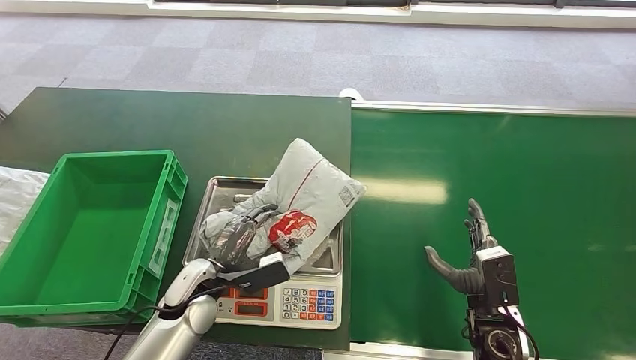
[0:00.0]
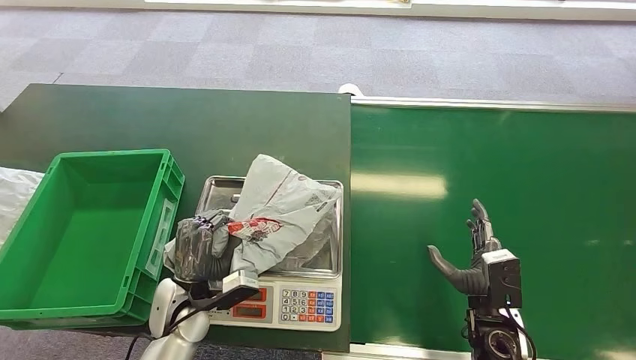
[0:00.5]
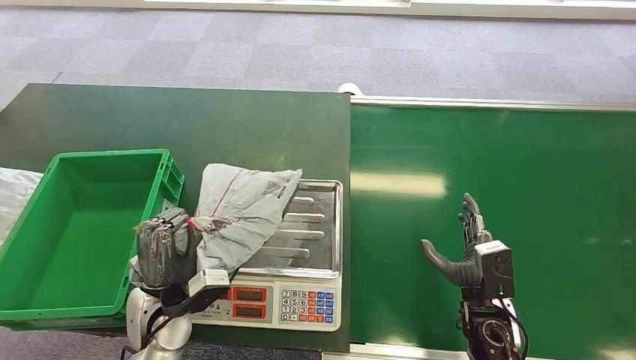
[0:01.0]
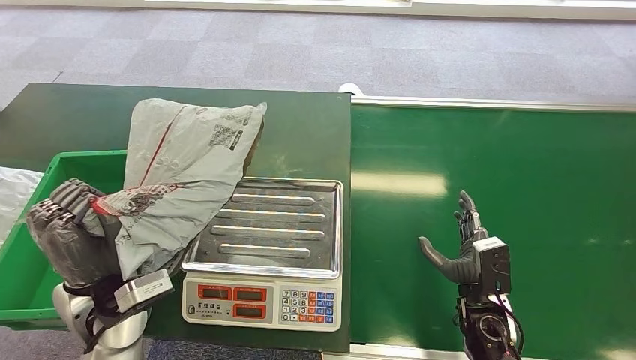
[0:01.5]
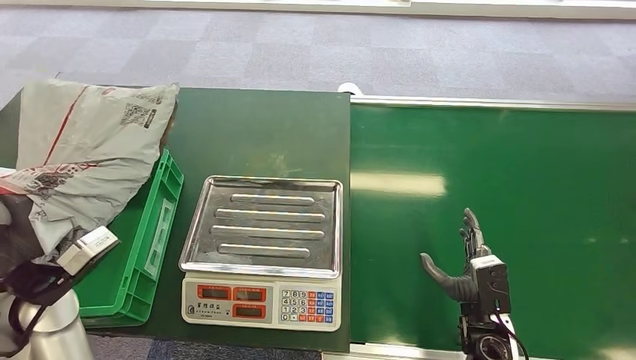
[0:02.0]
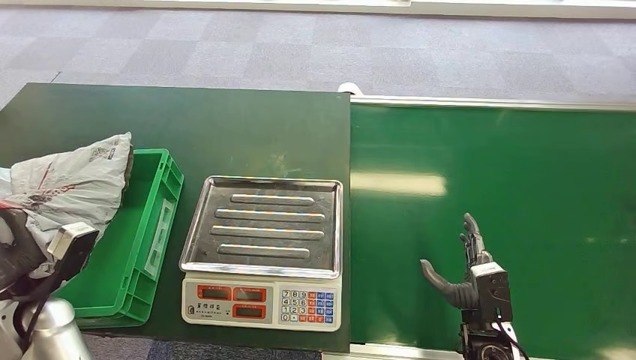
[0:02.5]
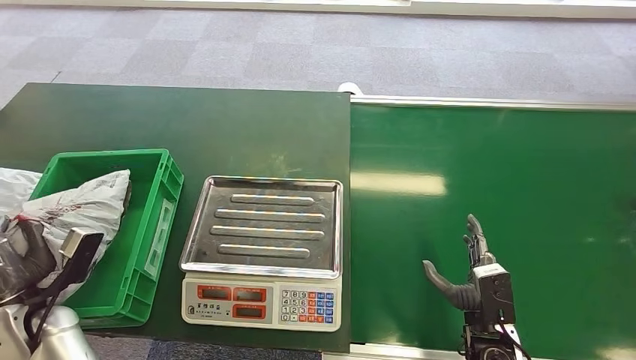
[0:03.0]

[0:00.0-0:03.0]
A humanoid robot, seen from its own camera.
Step, 0:02.0 to 0:03.0: Place the package into the parcel locker.
0:01.5 to 0:03.0: The left hand goes about 15 cm to the left and downward.
